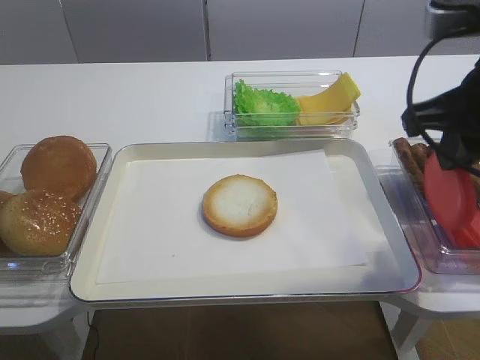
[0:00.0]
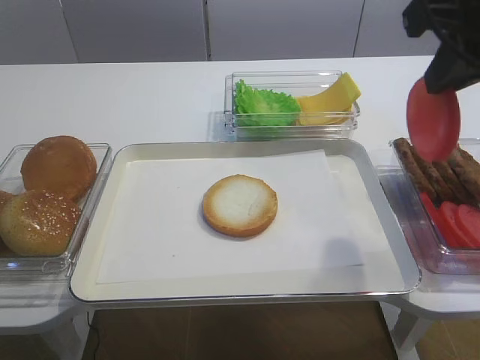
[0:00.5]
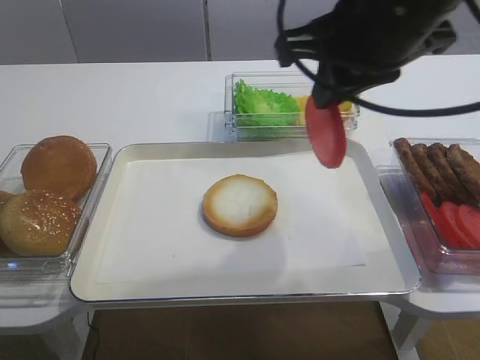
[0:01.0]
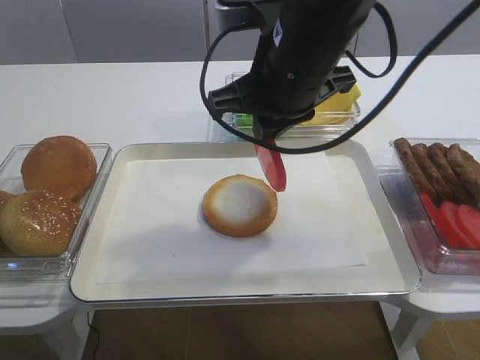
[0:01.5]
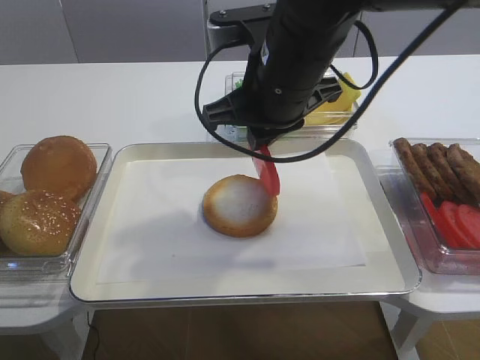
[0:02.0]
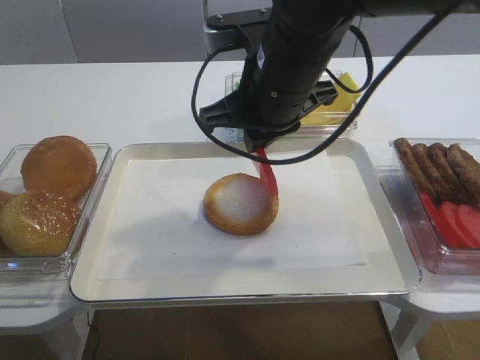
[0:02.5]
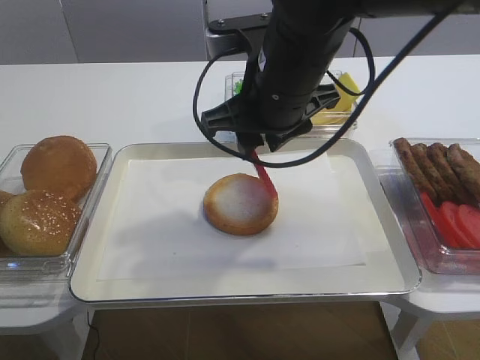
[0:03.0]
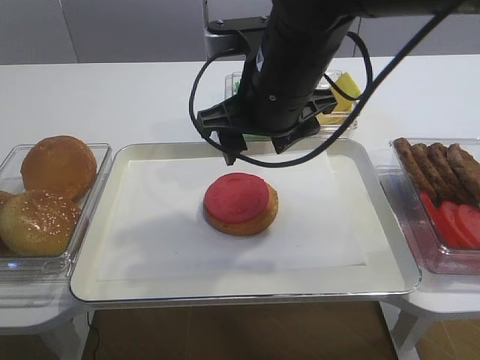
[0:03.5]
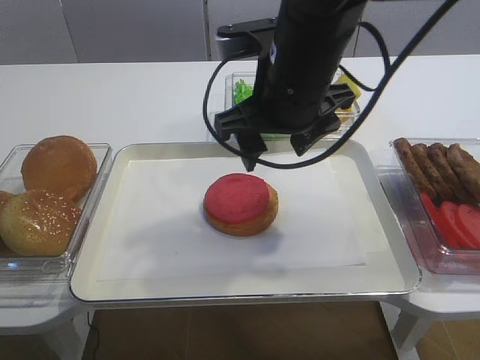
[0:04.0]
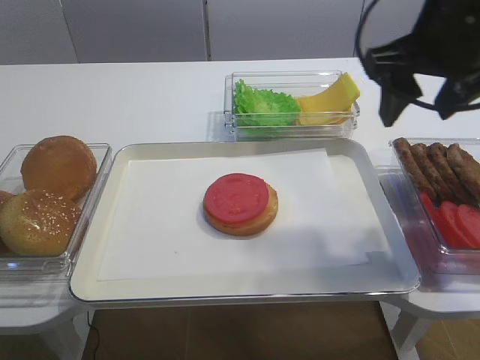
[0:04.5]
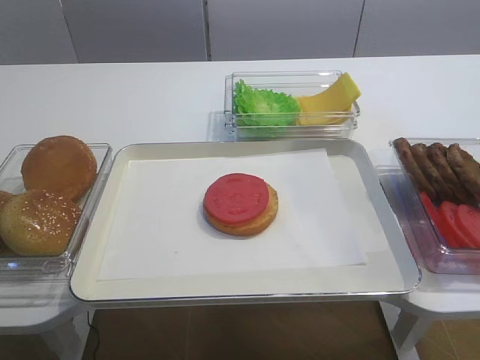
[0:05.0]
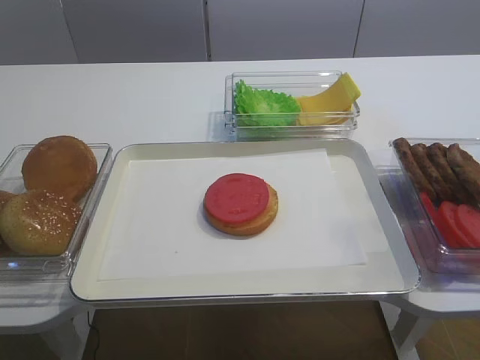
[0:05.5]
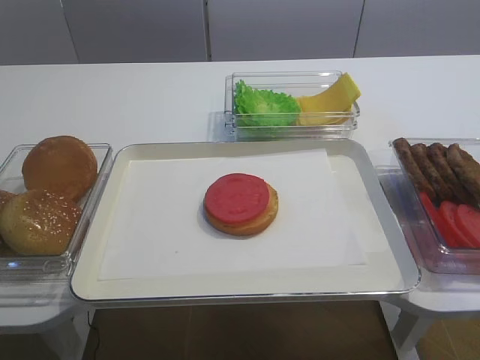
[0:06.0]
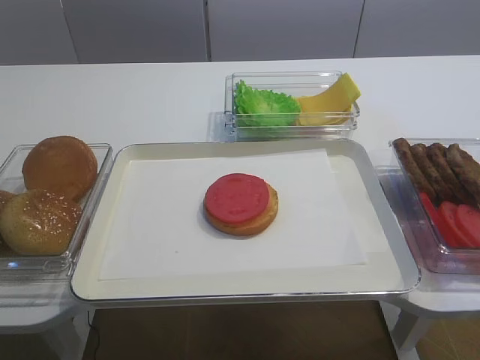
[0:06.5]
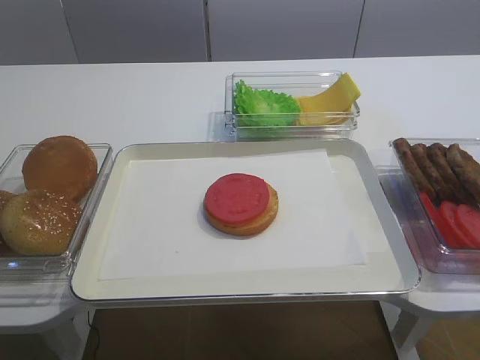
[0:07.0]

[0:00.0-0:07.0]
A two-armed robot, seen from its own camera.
Step, 0:00.0 to 0:03.0: Place the tomato slice on the bread slice with the right gripper.
0:00.0 to 0:02.0: The right gripper moves to the left and forward, about 15 cm.
0:02.0 to 0:03.5: The right gripper opens its fingers.
0:03.5 to 0:05.0: The right gripper travels to the right and backward by about 20 cm.
0:05.0 to 0:07.0: The right gripper goes roughly 20 cm backward.

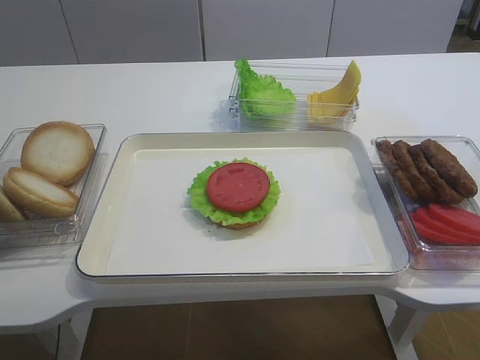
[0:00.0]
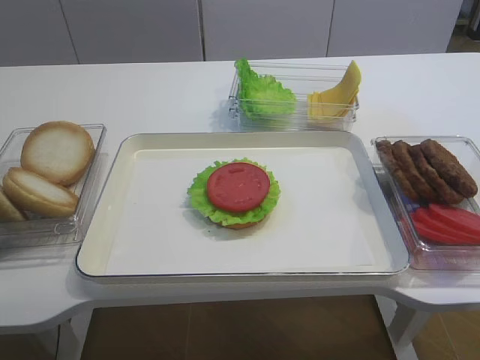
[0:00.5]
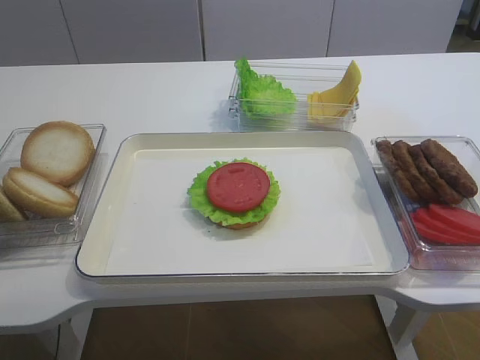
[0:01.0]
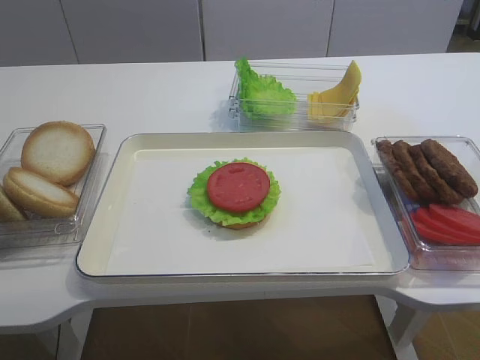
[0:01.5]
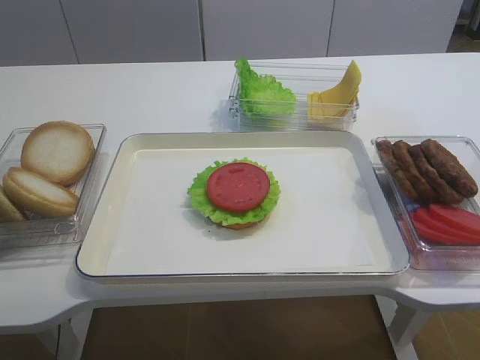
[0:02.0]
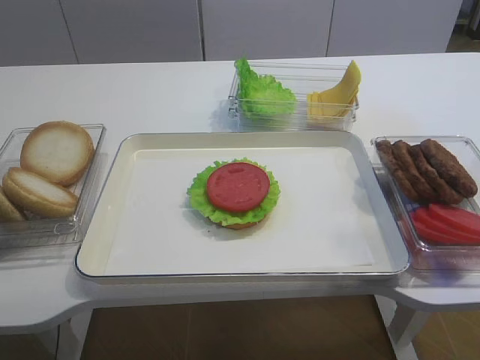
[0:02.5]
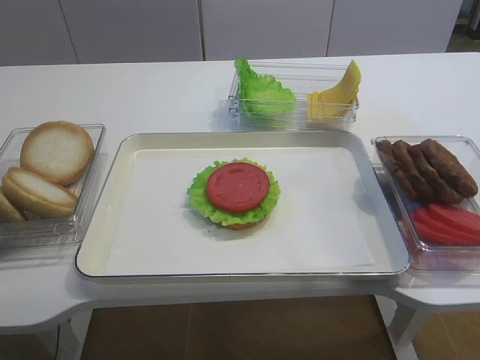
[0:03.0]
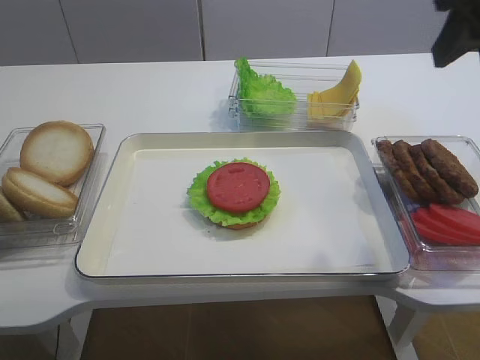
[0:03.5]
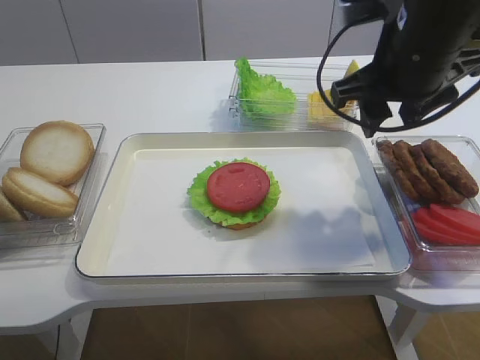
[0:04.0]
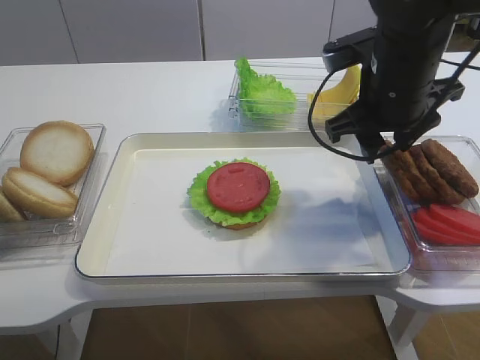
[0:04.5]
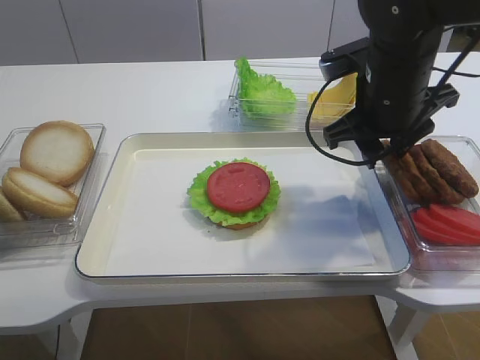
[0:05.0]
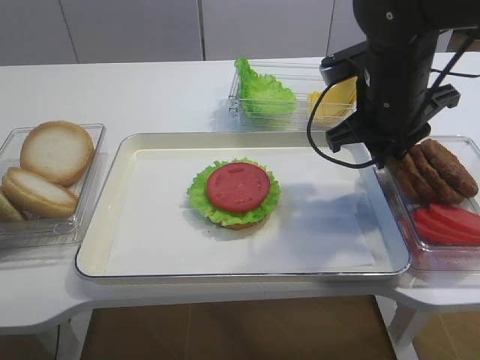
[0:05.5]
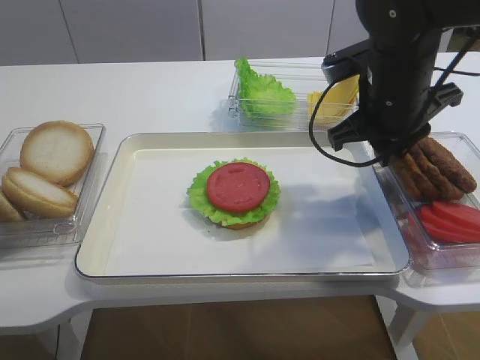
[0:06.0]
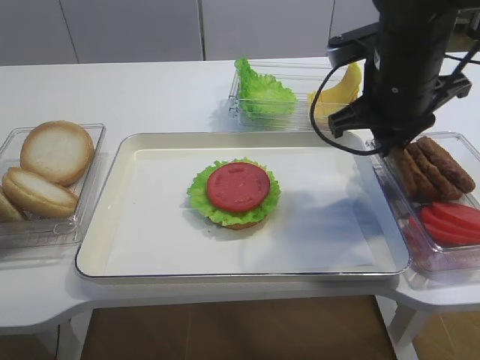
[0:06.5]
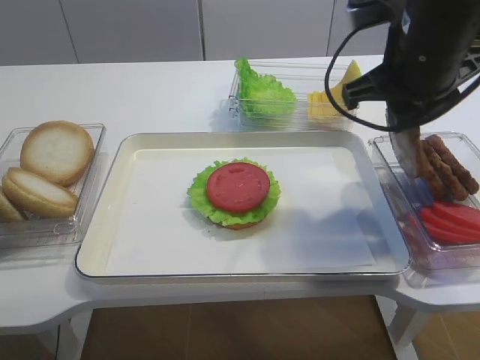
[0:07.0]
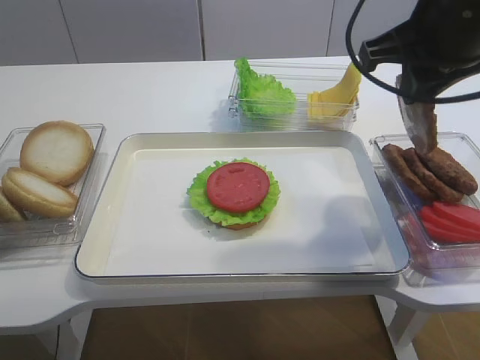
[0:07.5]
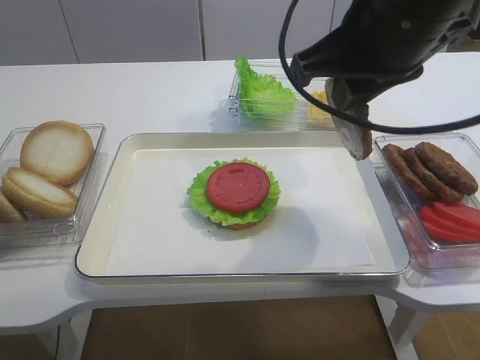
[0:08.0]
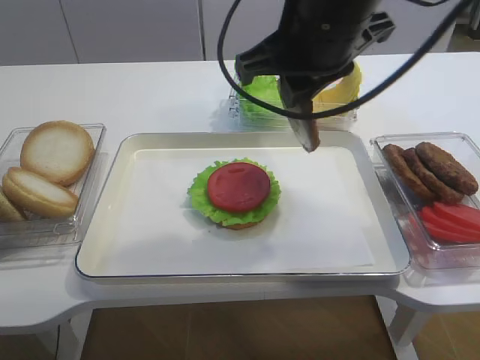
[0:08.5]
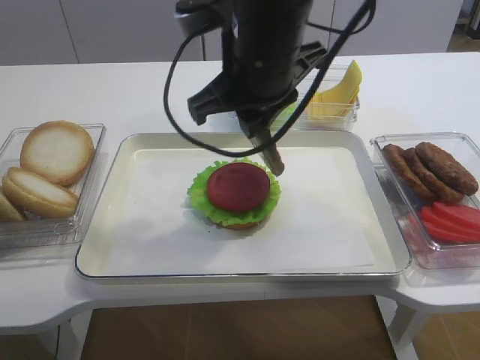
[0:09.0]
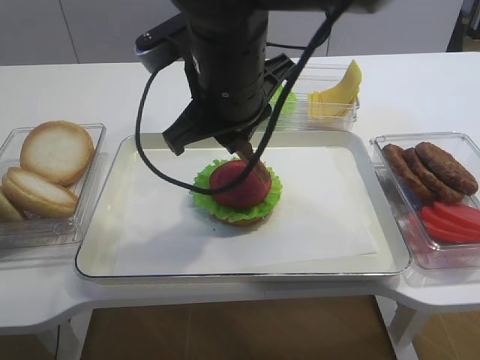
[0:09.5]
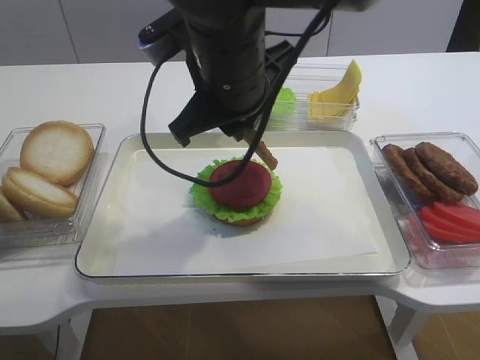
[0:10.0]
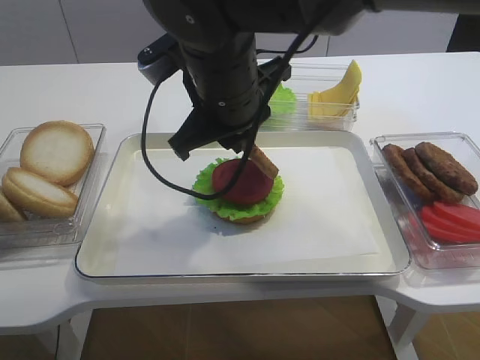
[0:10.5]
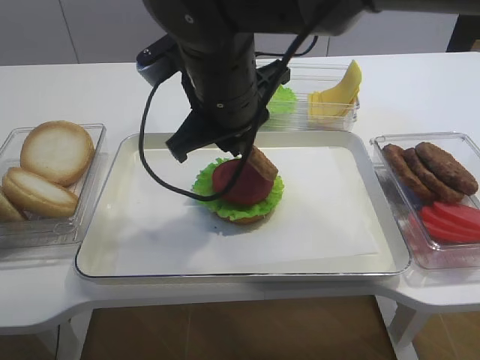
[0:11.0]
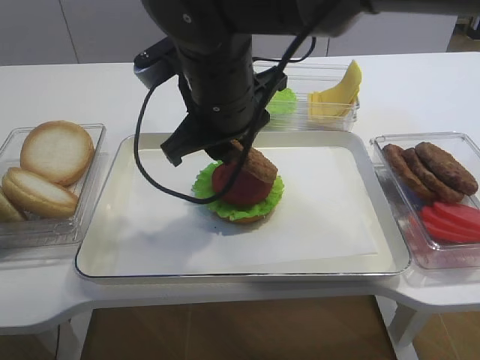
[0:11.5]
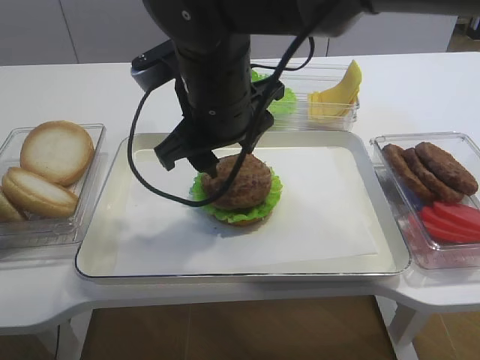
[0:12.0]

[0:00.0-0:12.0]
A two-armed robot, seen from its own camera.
Step, 0:00.0 to 0:07.0: Pick up the cutlet with the right gripper.
0:02.0 to 0:04.0: The right gripper shifts some 35 cm forward and to the left.
0:04.0 to 0:06.0: The right gripper goes roughly 5 cm downward, and closes.
0:06.0 to 0:08.0: The right gripper is displaced upward and backward by approximately 15 cm.
0:08.0 to 0:10.0: The right gripper moves to the left and downward, roughly 15 cm.
0:10.0 to 0:12.0: The right gripper opens its fingers.

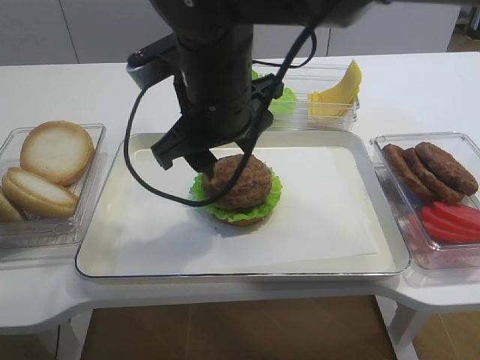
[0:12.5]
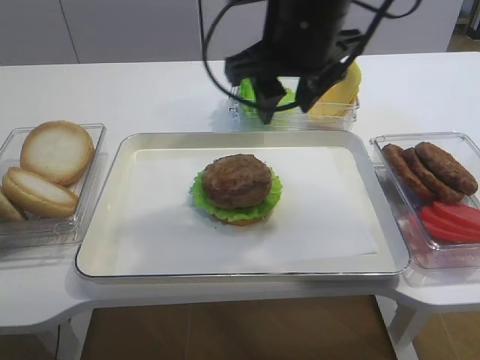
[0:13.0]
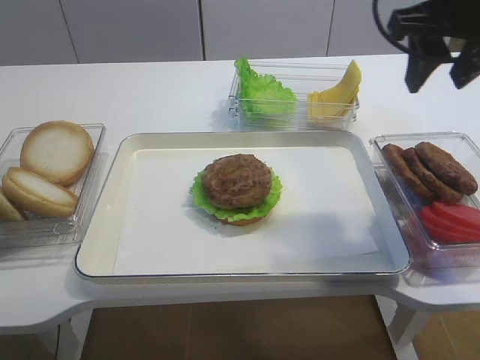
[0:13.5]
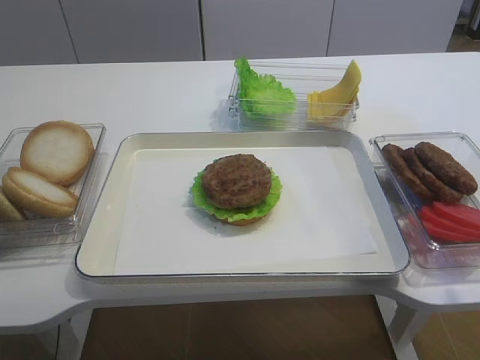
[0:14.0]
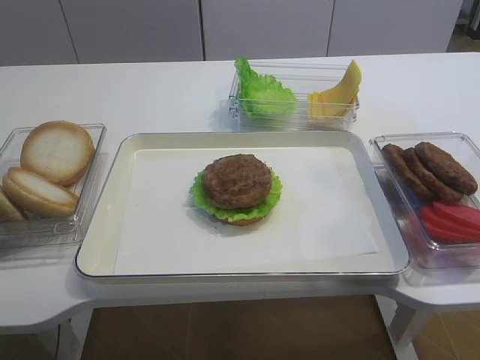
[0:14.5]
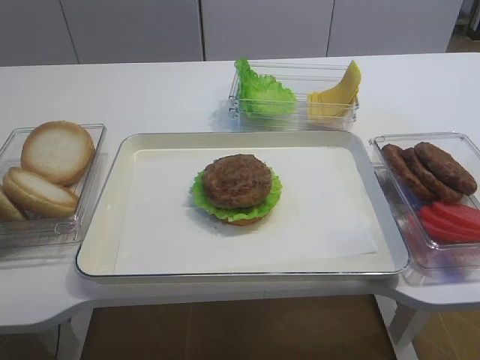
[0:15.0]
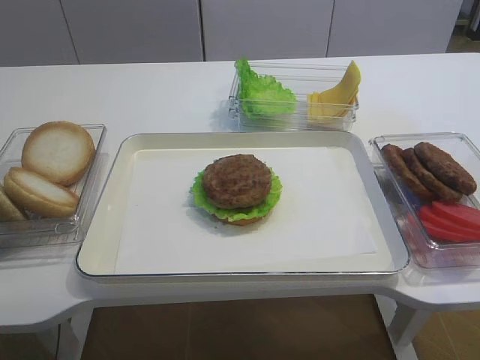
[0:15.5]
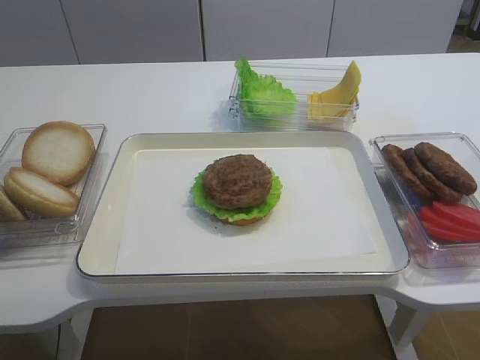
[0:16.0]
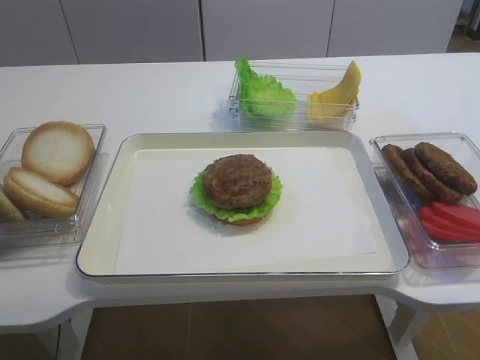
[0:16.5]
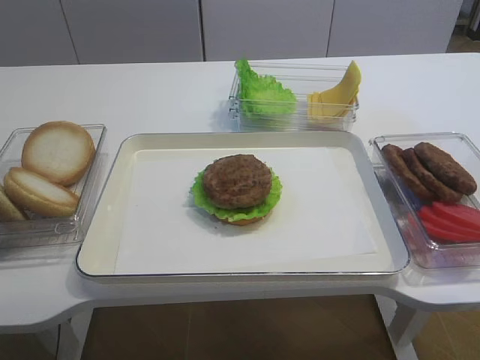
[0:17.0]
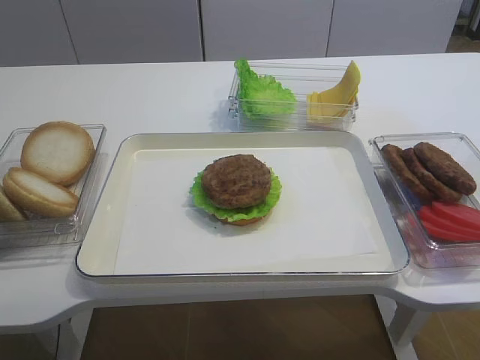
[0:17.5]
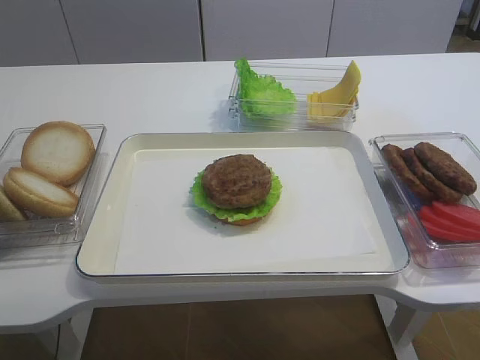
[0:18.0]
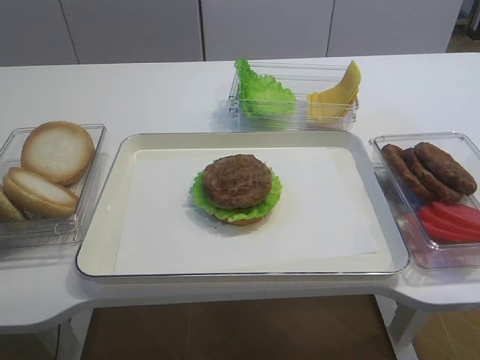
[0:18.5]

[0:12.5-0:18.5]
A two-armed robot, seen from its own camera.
0:12.5 to 0:14.5: The right gripper is displaced to the right and backward by some 35 cm.
0:14.5 to 0:16.5: The right gripper shifts approximately 15 cm backward and downward.
0:16.5 to 0:18.5: Both grippers stay put.

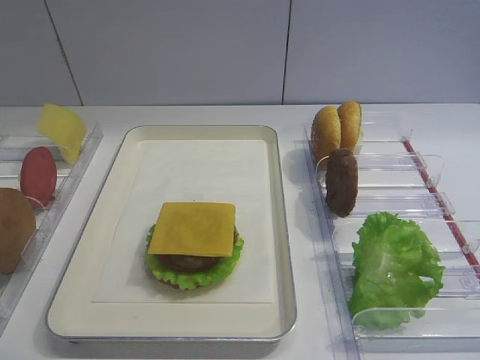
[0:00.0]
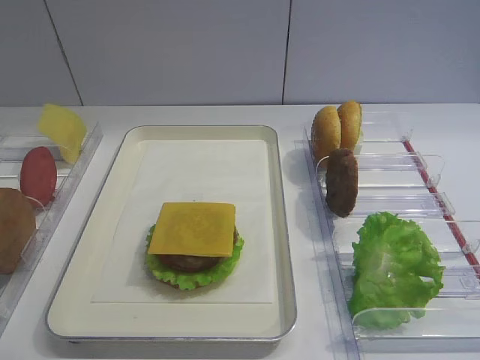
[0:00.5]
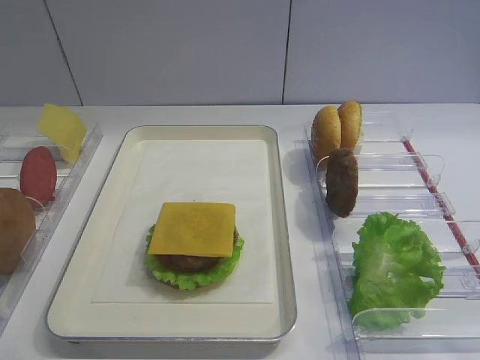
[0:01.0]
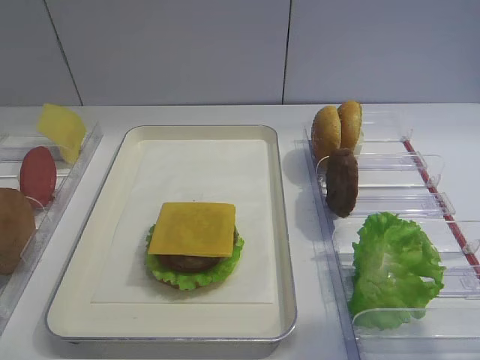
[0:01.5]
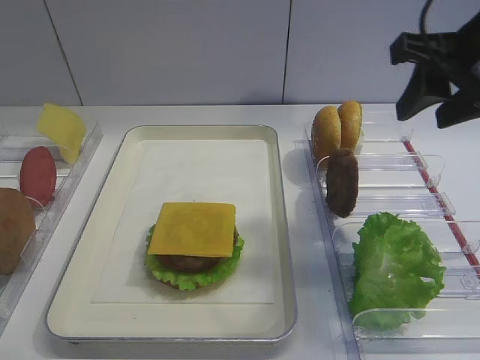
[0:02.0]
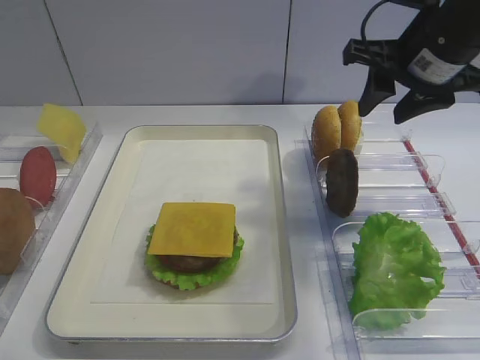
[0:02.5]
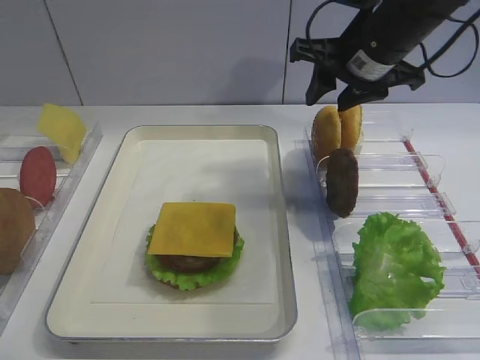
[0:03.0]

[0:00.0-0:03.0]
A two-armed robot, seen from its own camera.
0:01.5 to 0:03.0: The right gripper moves forward and to the left, about 25 cm.
